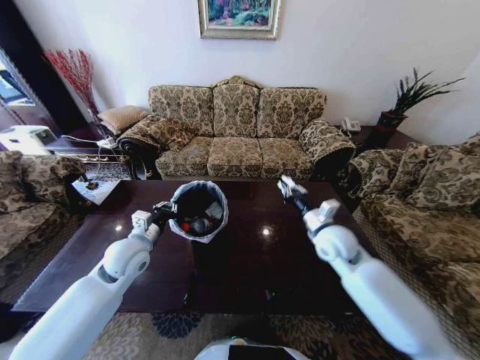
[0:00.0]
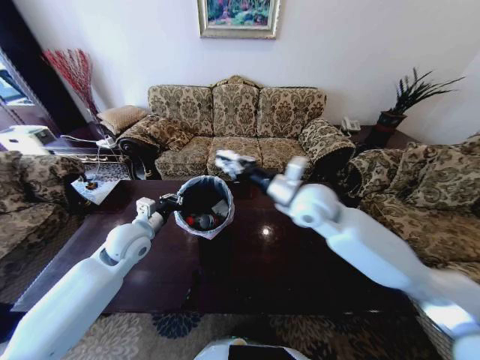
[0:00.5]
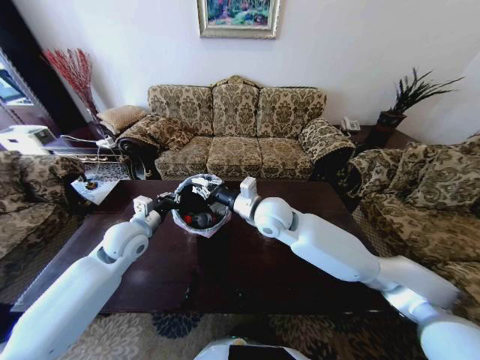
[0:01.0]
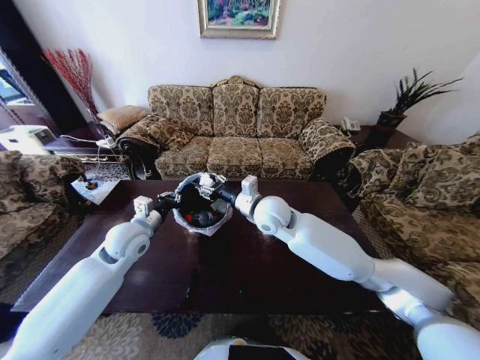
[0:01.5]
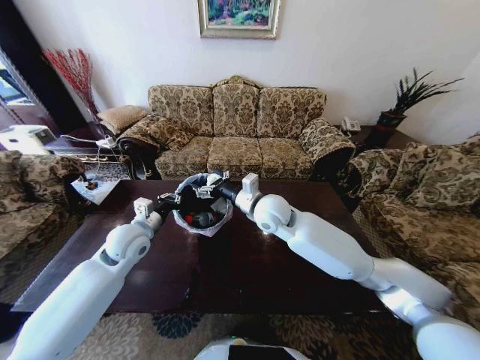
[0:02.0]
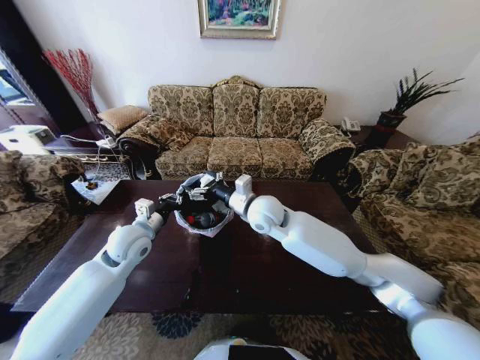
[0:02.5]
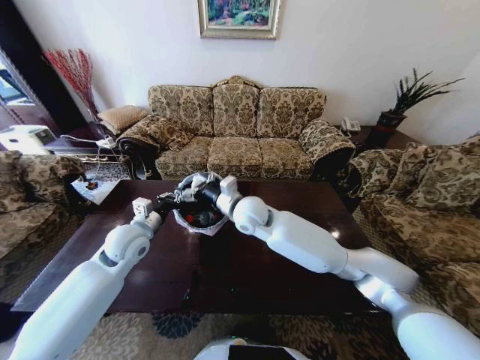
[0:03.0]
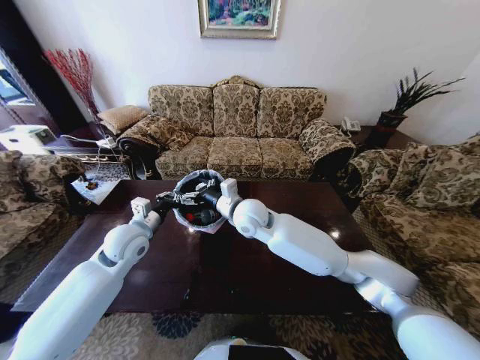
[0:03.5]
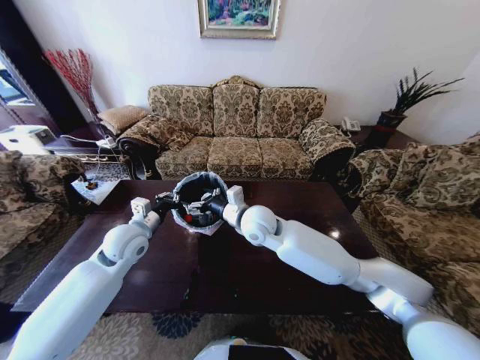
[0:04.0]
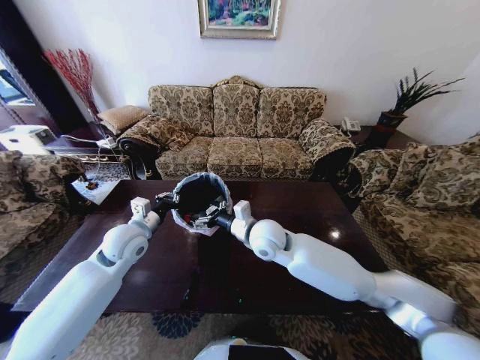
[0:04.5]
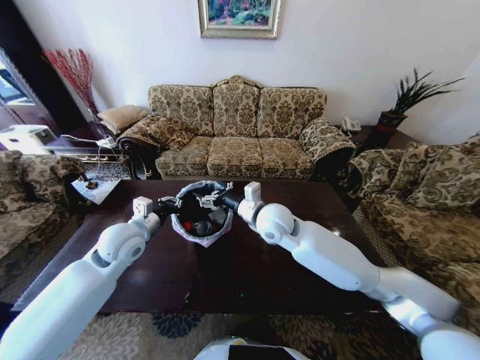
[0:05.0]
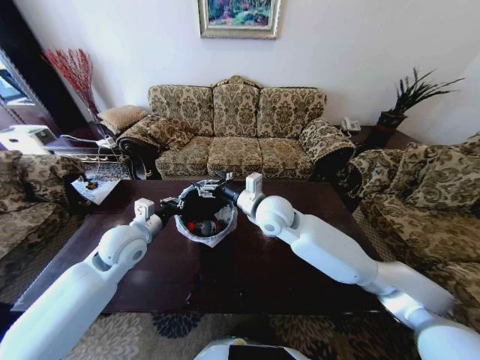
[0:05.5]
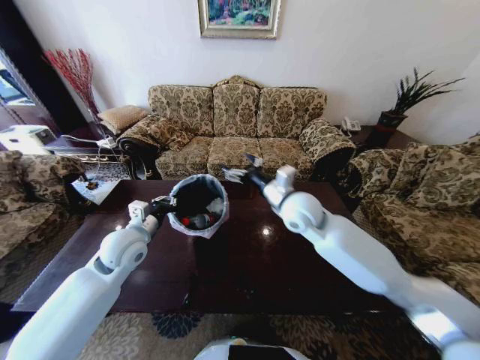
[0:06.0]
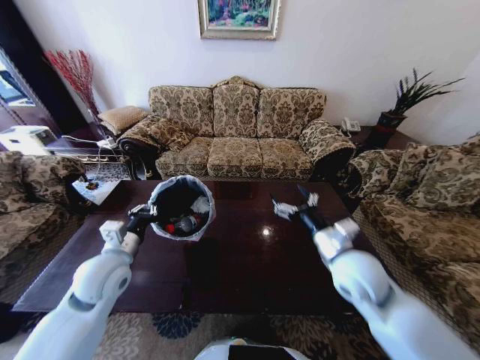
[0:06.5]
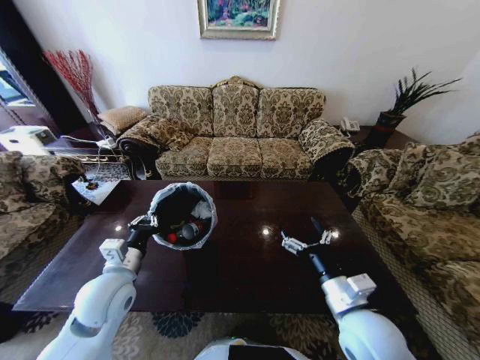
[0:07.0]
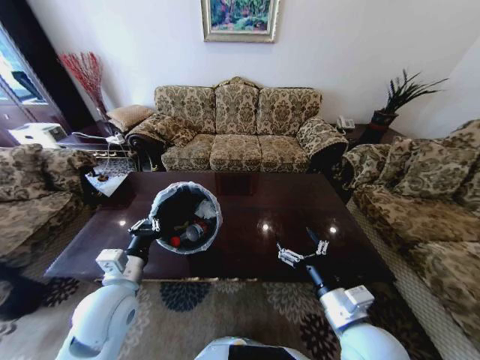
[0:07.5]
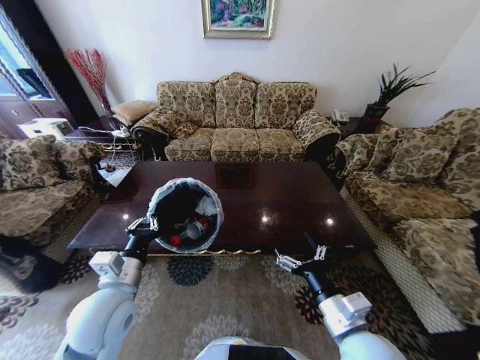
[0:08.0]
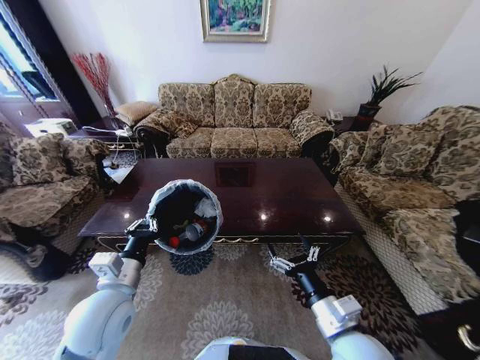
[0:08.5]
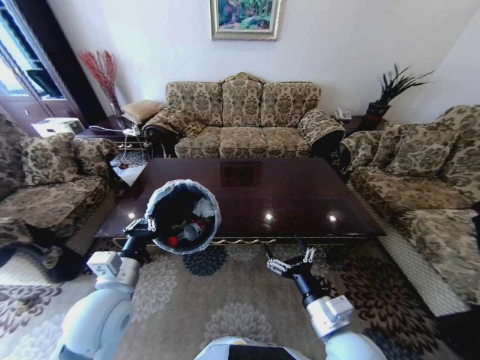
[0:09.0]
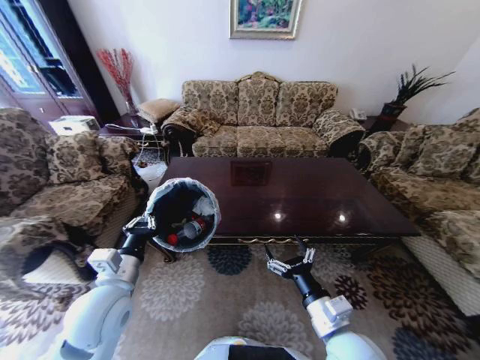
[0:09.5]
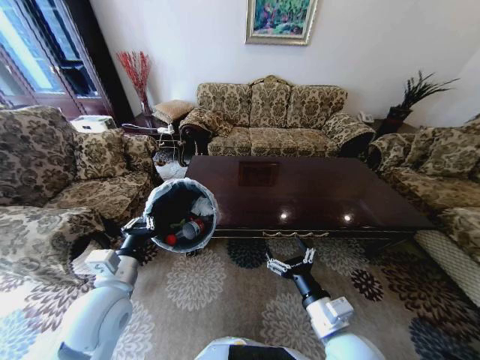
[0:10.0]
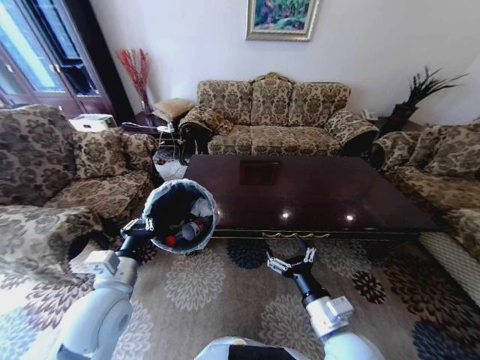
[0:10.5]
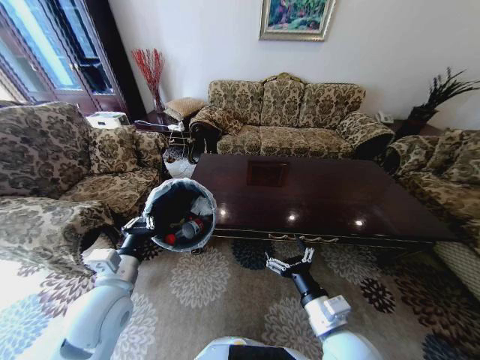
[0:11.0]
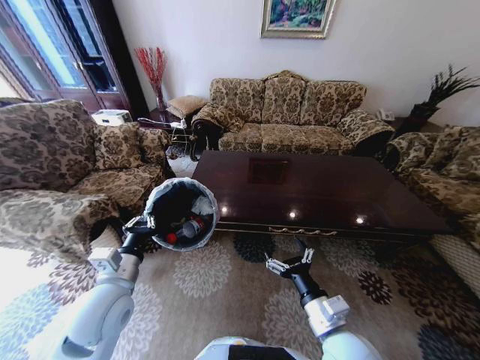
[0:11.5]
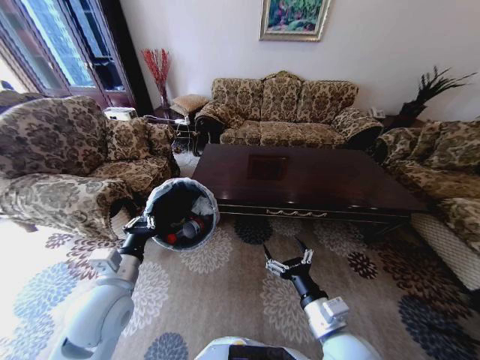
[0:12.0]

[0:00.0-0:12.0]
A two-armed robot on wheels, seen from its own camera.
Task of the whole recording: Move to the front of the table and place the trash on the table into the trash bin.
0:00.0 to 0:02.0: The right gripper heads to the left, covering approximately 20 cm, and opens its fingers.
0:04.0 to 0:06.0: The right gripper goes about 10 cm to the right.
0:06.0 to 0:08.0: The left gripper moves backward, some 15 cm. Meanwhile the right gripper is displaced backward by roughly 25 cm.

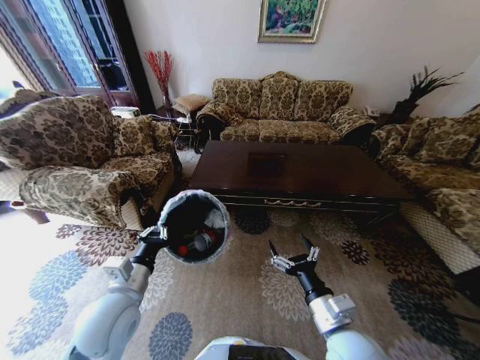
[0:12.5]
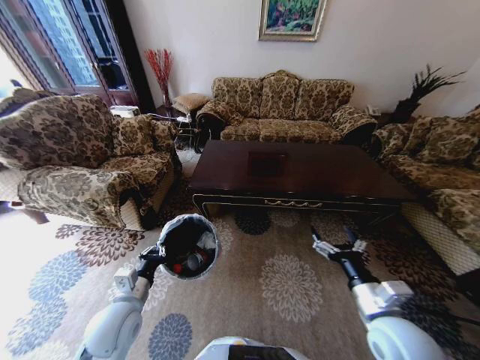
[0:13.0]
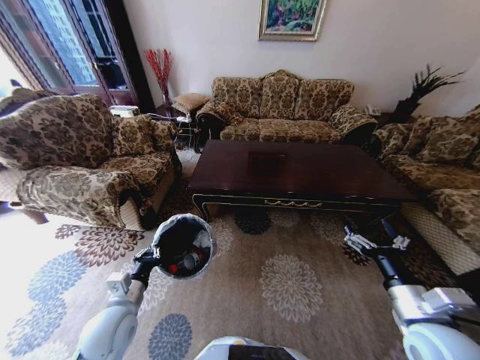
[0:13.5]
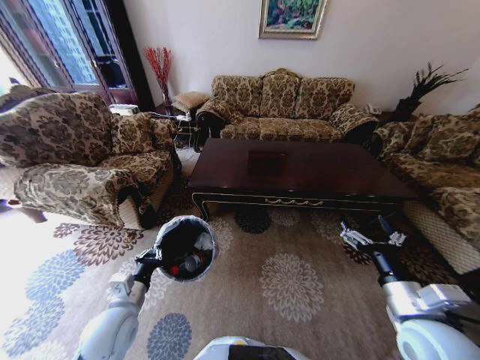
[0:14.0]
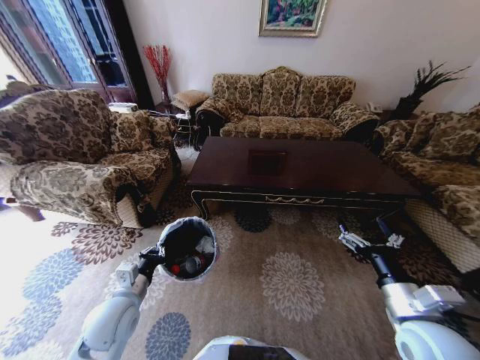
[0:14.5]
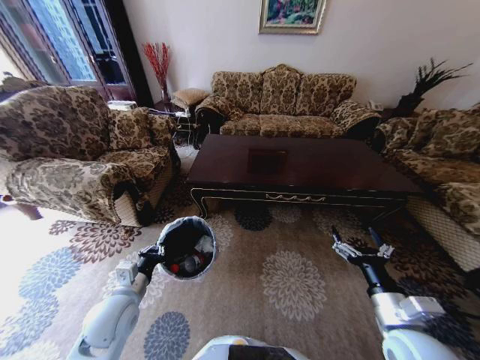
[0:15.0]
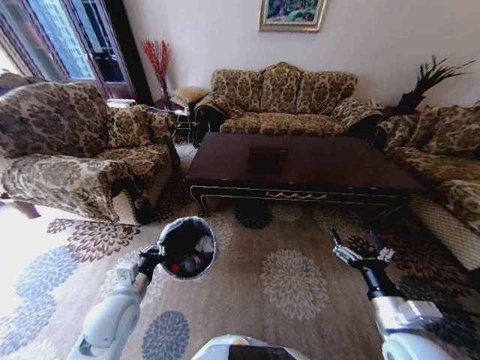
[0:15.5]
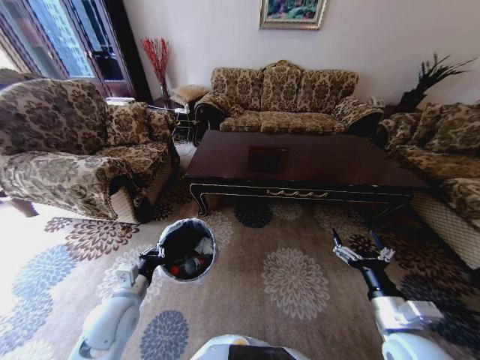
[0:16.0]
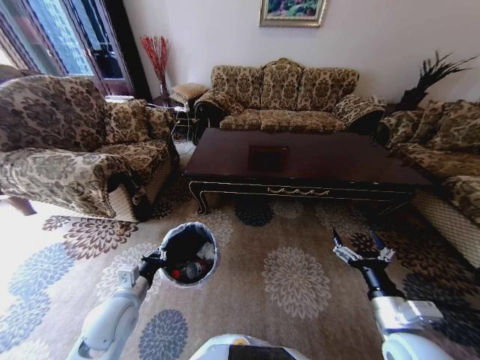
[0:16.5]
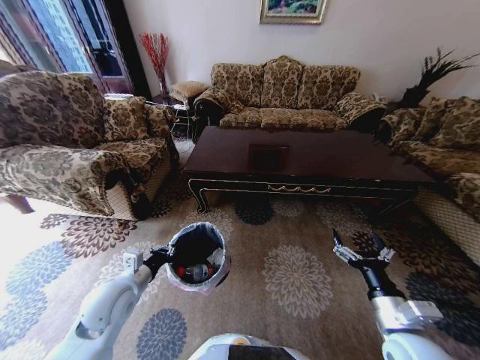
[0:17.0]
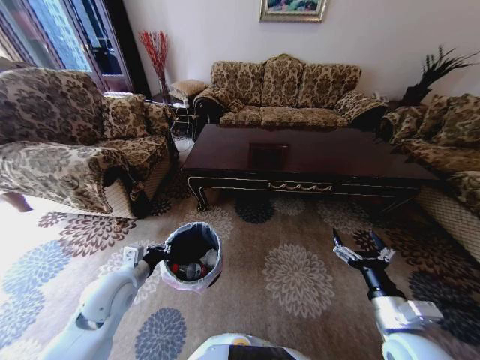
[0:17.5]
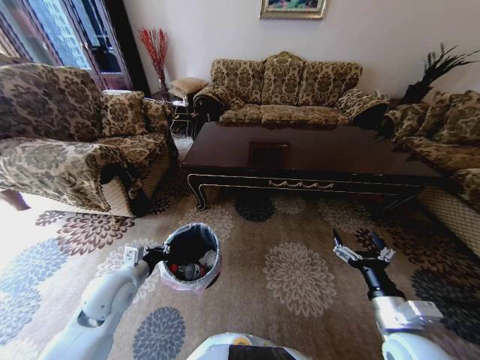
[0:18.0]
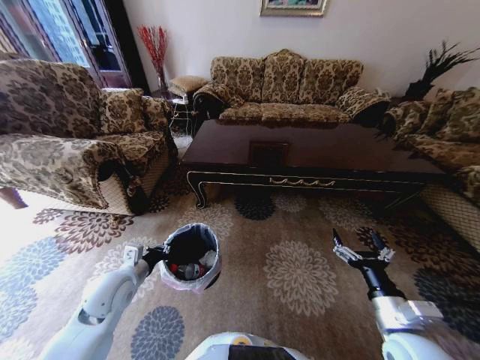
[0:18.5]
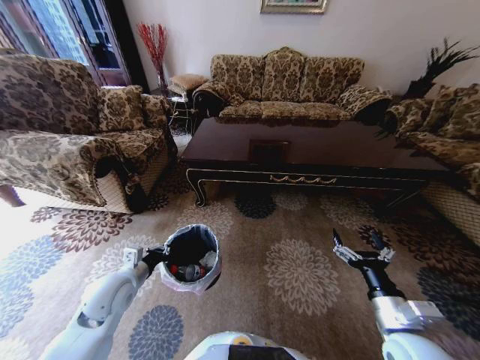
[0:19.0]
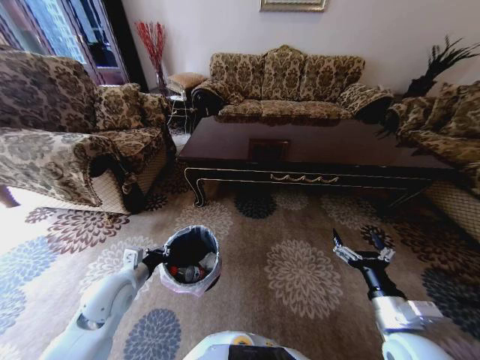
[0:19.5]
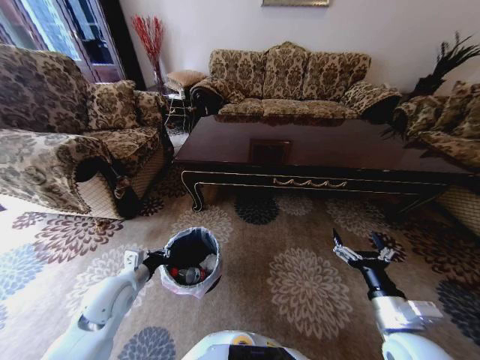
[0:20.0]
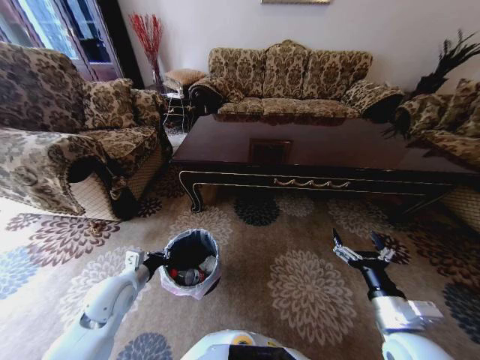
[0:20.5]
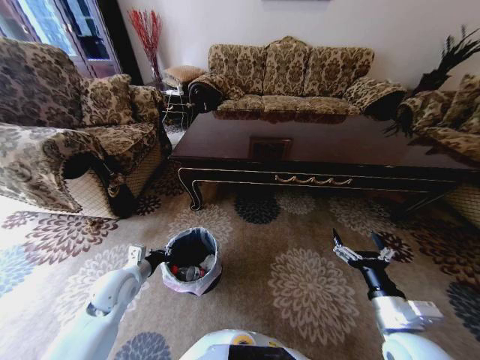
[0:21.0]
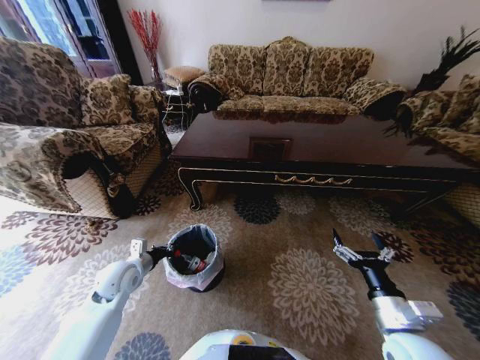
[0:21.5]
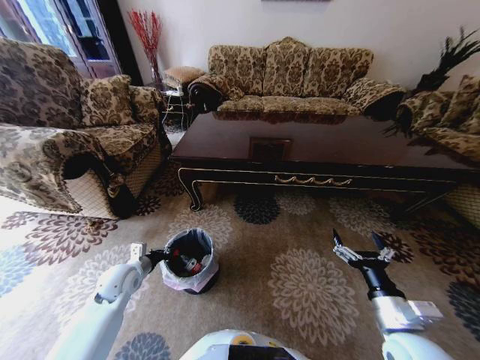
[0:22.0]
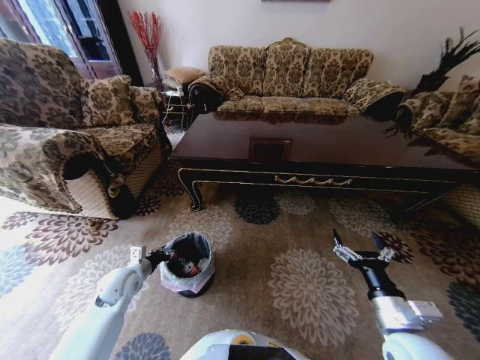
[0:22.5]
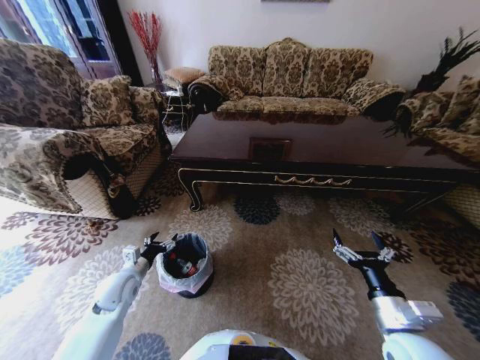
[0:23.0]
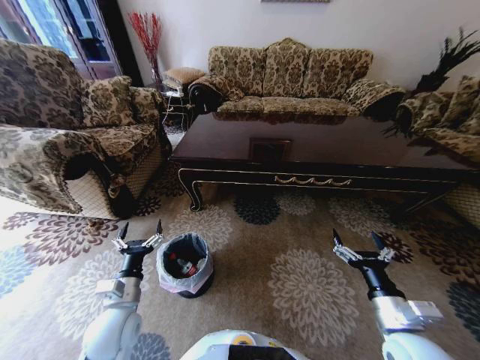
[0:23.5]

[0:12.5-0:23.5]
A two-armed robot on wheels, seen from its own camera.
Task of the whole recording: Move to the front of the table and place the trash on the table into the trash bin.
0:12.5 to 0:14.5: The right gripper goes approximately 10 cm to the right, while the left gripper moves downward, some 5 cm.
0:16.0 to 0:18.0: The left gripper changes place by approximately 5 cm.
0:20.0 to 0:21.5: The left gripper shifts roughly 5 cm forward.
0:21.5 to 0:23.5: The left gripper moves backward and to the right, approximately 15 cm, and opens.

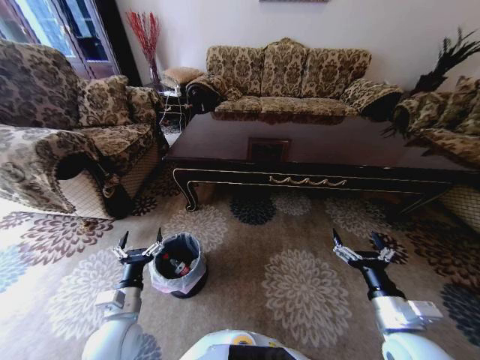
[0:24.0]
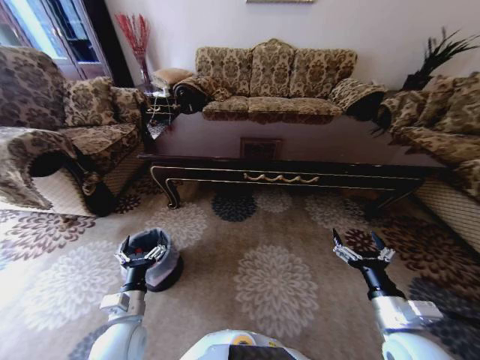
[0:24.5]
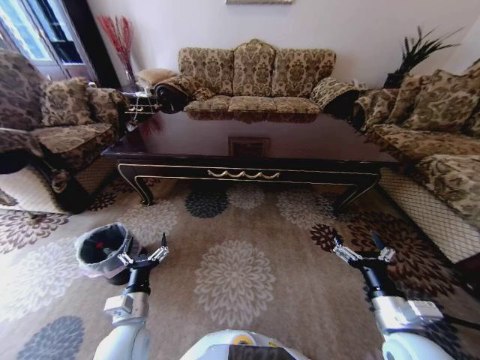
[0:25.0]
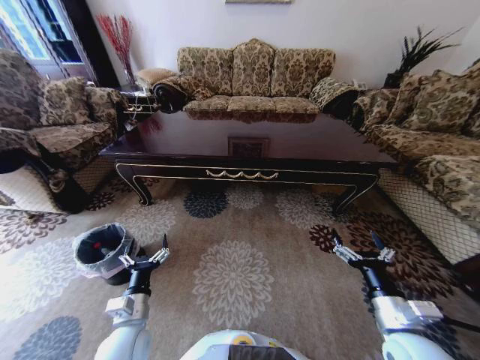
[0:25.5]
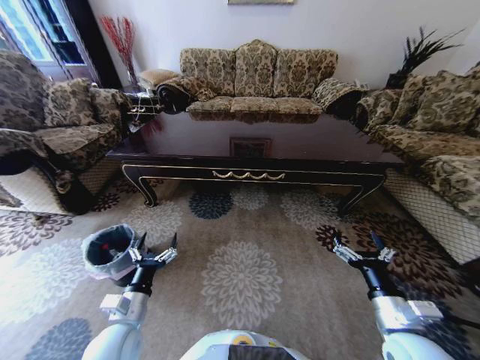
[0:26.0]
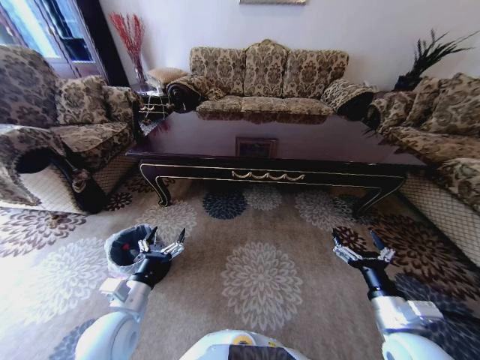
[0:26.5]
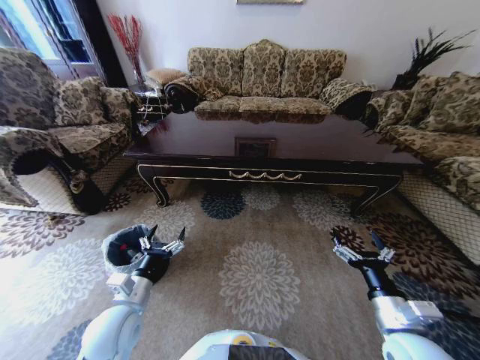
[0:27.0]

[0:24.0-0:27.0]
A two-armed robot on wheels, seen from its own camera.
Task of the whole recording: Move to the front of the table and place the trash on the table into the trash bin.
0:25.5 to 0:27.0: The left gripper moves some 5 cm.
